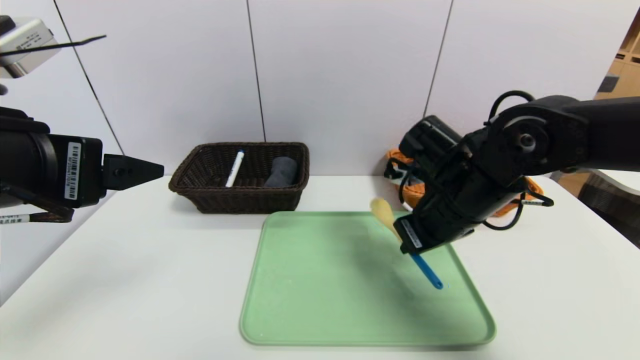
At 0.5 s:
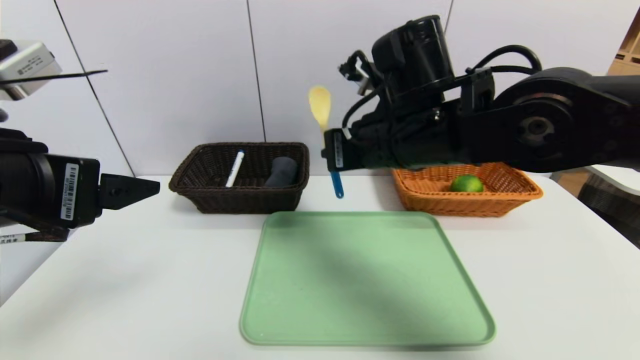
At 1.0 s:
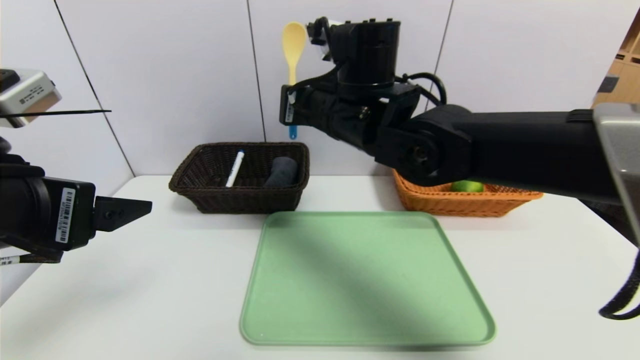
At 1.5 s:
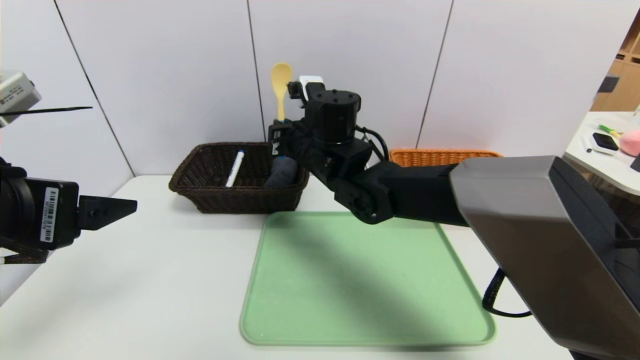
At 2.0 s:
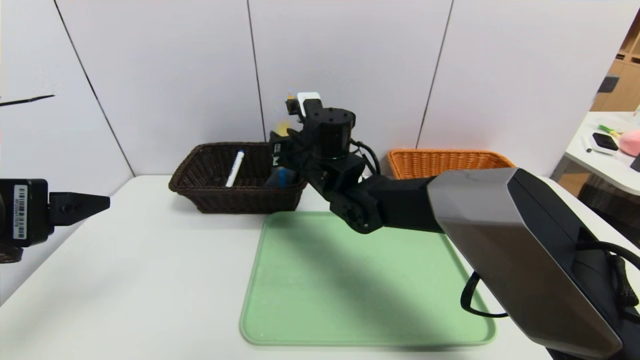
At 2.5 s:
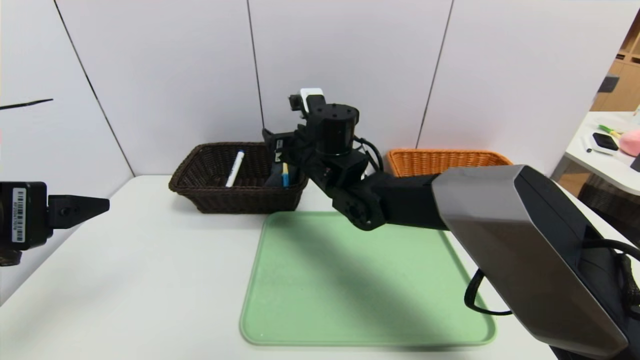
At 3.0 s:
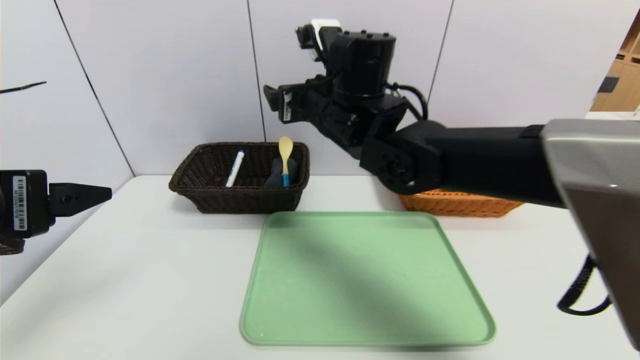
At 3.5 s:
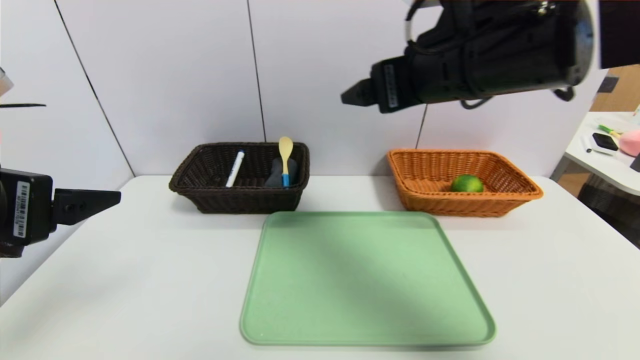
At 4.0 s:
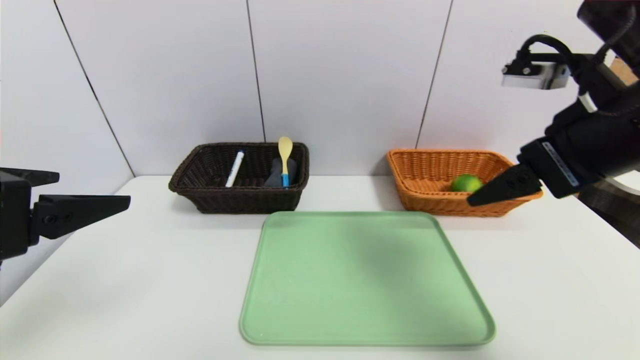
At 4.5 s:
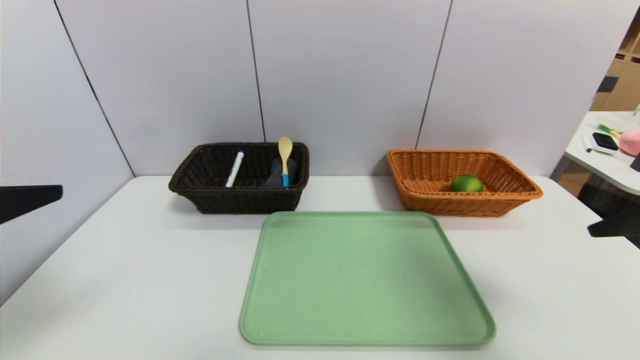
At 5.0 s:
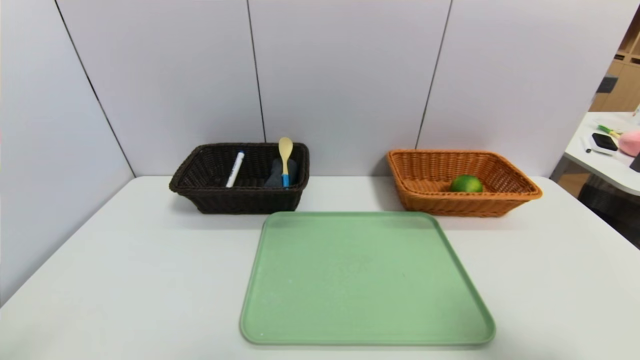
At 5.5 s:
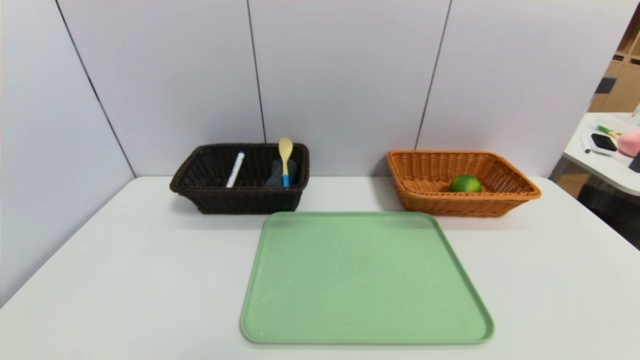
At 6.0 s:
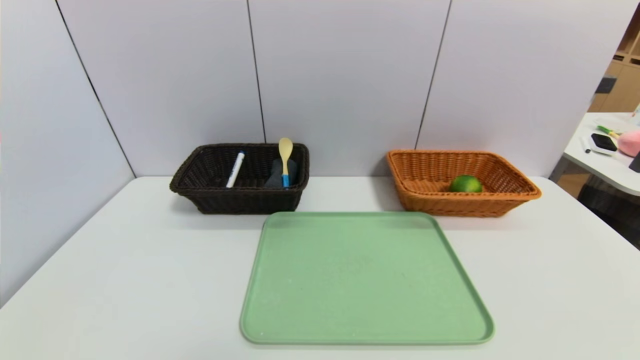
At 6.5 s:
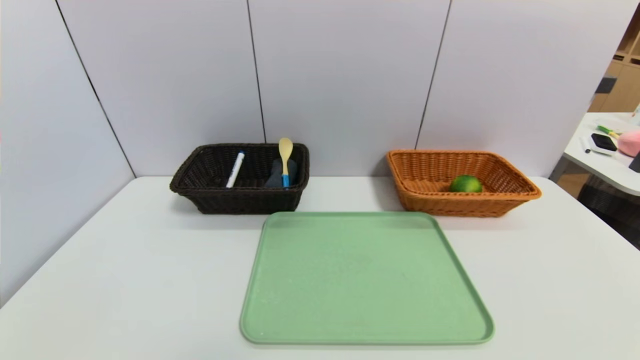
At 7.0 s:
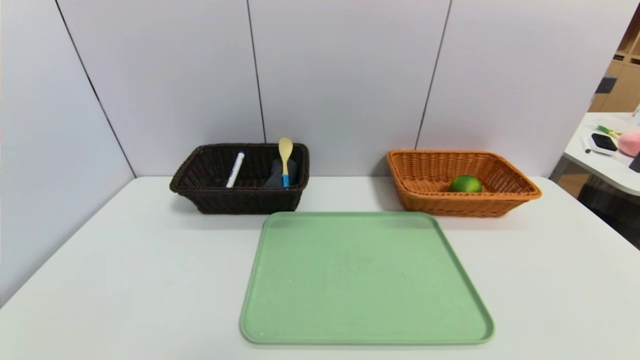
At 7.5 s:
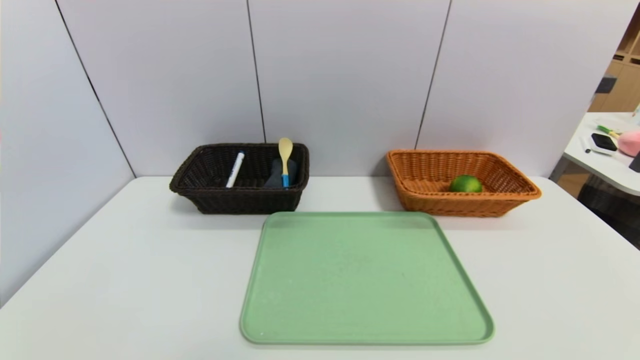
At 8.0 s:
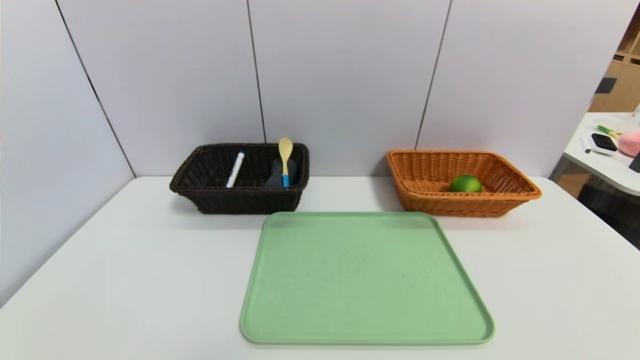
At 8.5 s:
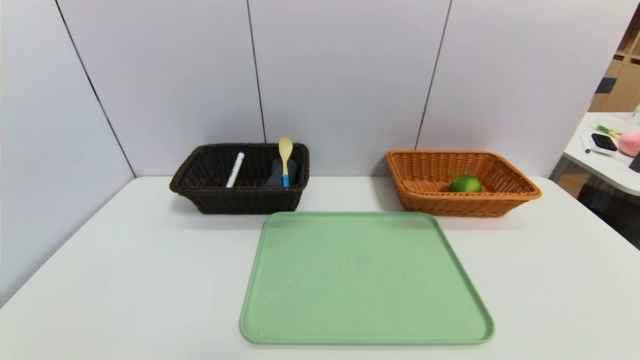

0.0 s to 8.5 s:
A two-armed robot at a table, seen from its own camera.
Task of the whole recording: place the food in the right basket with the right gripper, and place the non food items in the left basket with the left gripper.
0.0 to 2.0 s: The right gripper shifts some 20 cm to the left and forward.
2.0 to 4.0 s: The right gripper goes some 35 cm to the right, backward and upward, and opens up.
4.0 to 6.5 s: The right gripper heads backward and downward, covering roughly 30 cm; the left gripper moves downward and backward, roughly 25 cm.
